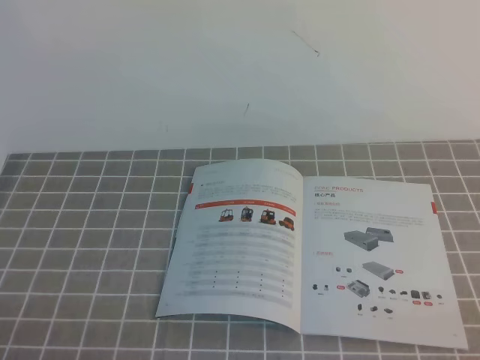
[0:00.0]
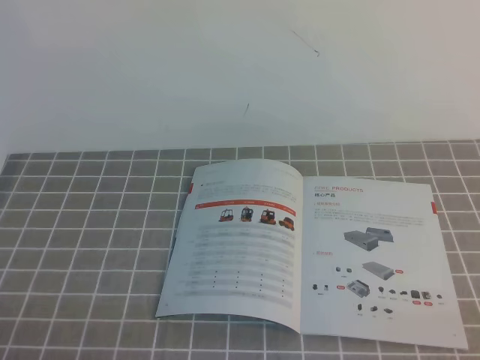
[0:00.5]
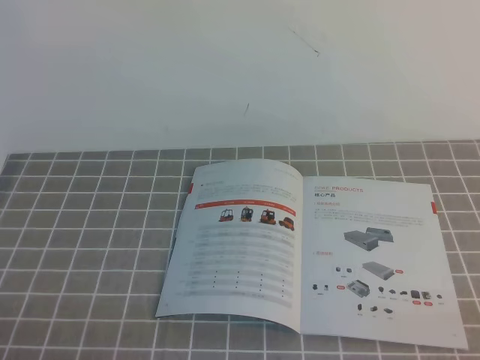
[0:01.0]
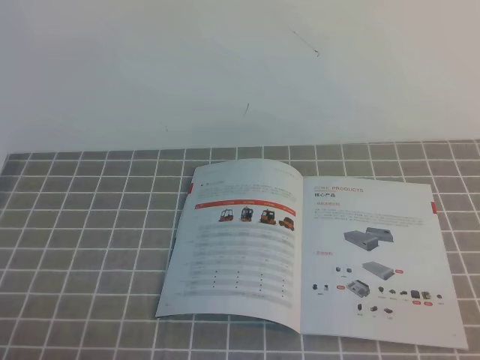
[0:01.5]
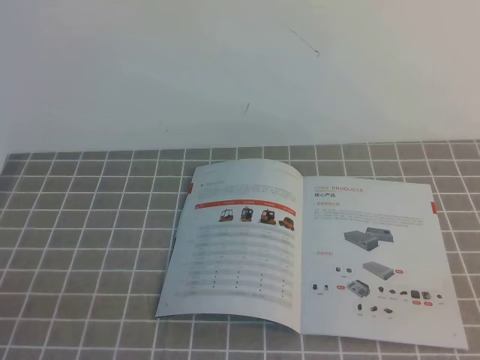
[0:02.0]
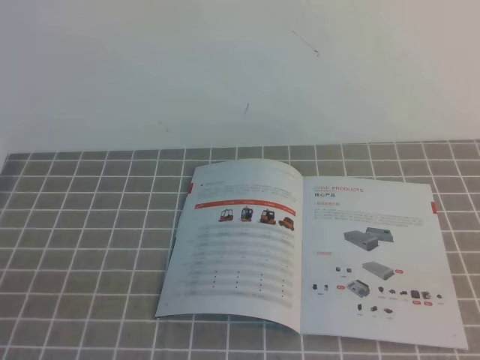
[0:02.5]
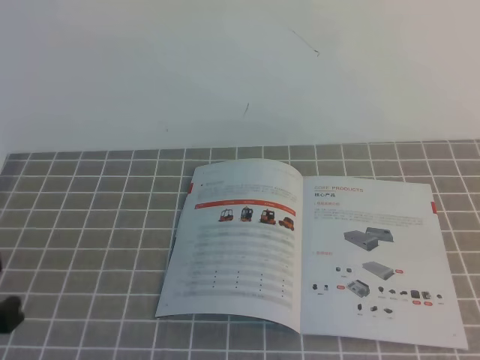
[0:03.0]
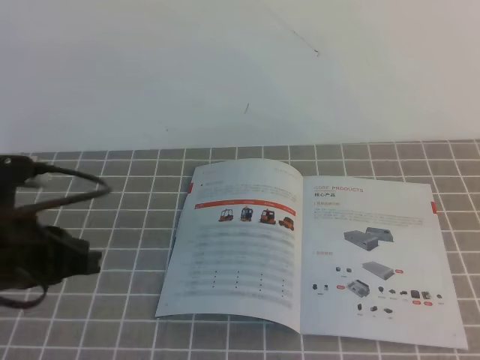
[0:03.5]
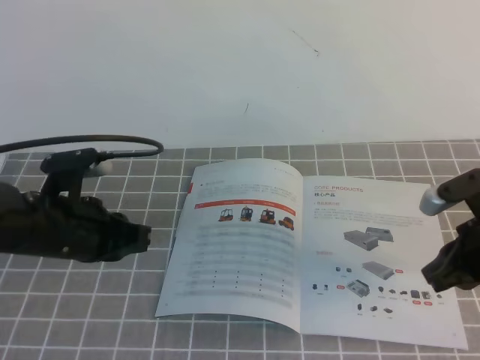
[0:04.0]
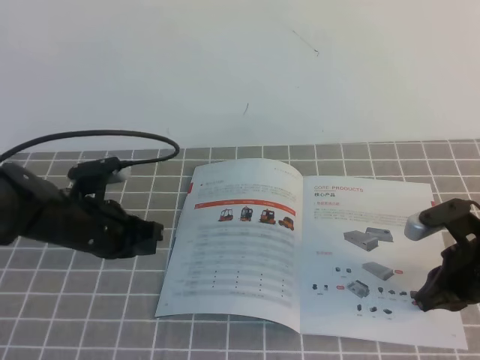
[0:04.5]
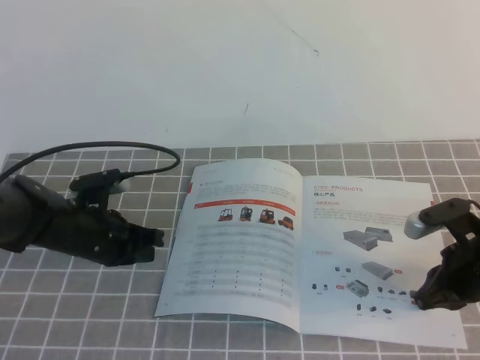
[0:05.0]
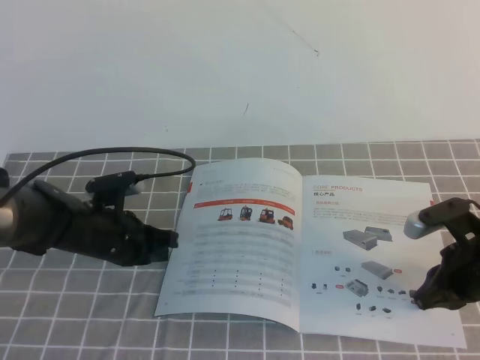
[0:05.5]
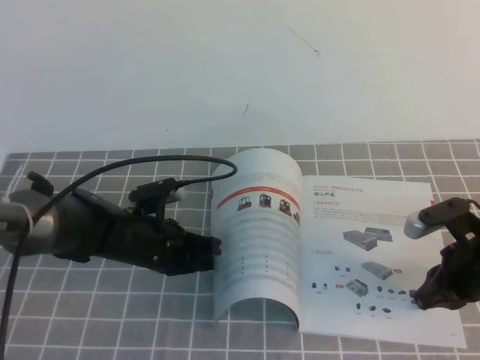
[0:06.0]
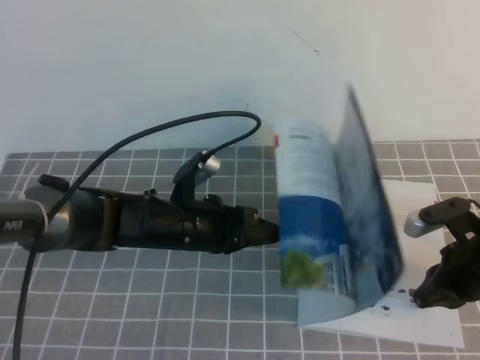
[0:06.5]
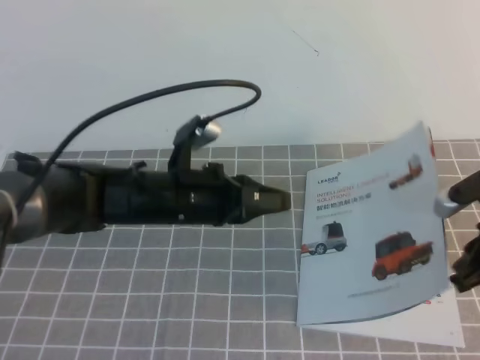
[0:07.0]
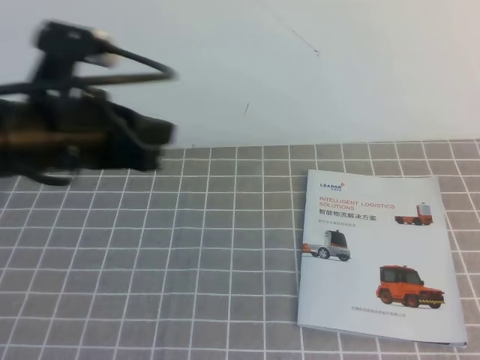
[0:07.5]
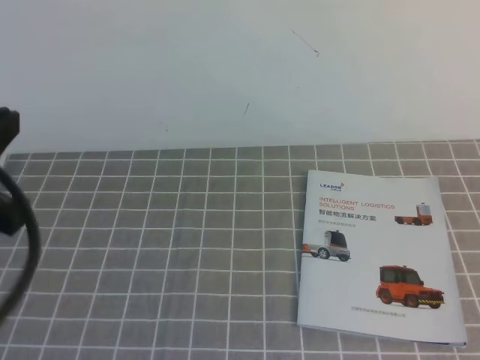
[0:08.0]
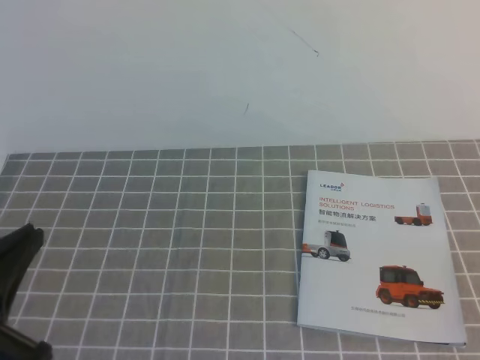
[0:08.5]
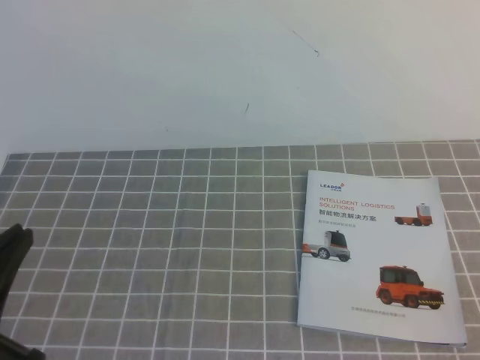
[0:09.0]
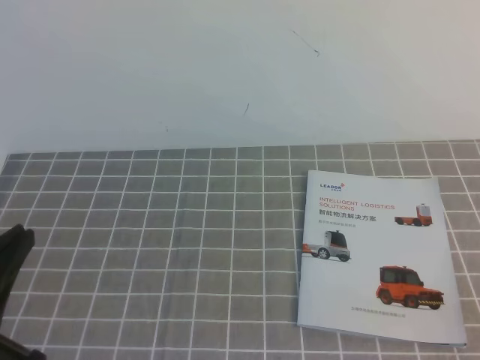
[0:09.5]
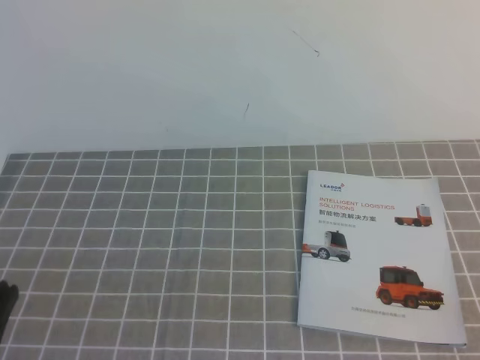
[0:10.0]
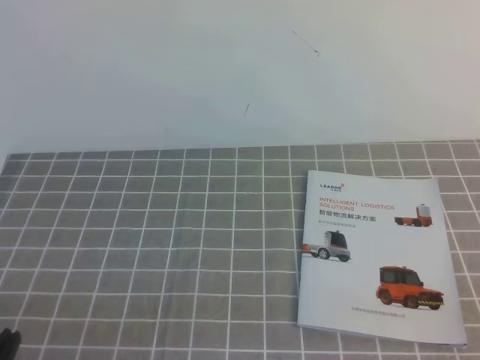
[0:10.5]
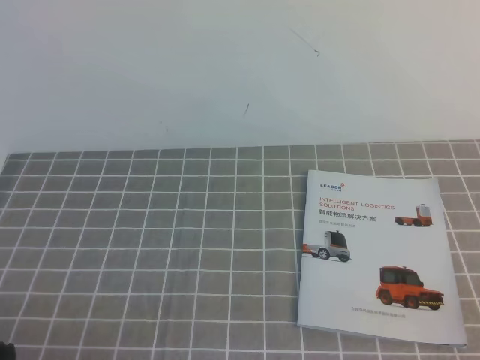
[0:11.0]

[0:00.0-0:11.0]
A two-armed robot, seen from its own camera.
Task of the whole recording: on the grey tablecloth, hold the book with one hand and close it with the other.
0:02.0 to 0:03.5: The left gripper shifts about 15 cm forward.
0:03.5 to 0:05.5: The right gripper shifts roughly 20 cm downward and forward; the left gripper goes about 20 cm forward and downward.
0:05.5 to 0:07.5: The left gripper goes about 20 cm upward. Meanwhile the right gripper heads upward and backward, covering roughly 20 cm.
0:07.5 to 0:09.0: Both grippers travel together backward, approximately 20 cm.
0:09.0 to 0:11.0: The left gripper shifts approximately 10 cm downward.
